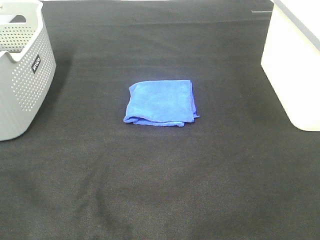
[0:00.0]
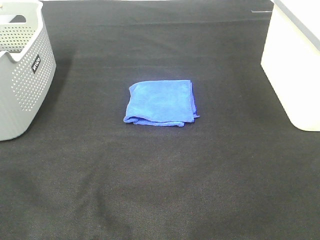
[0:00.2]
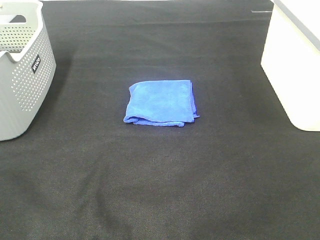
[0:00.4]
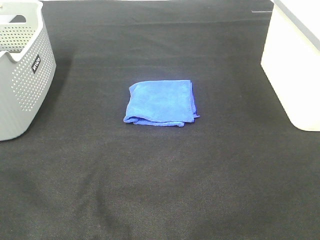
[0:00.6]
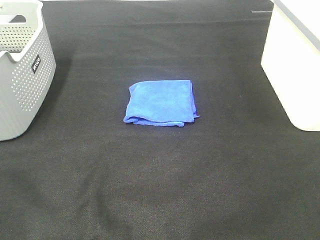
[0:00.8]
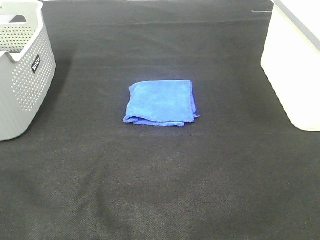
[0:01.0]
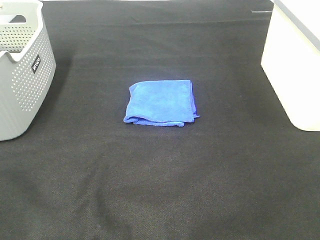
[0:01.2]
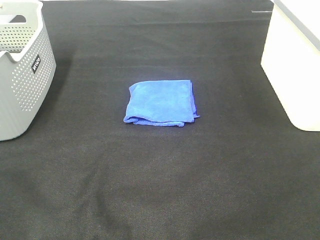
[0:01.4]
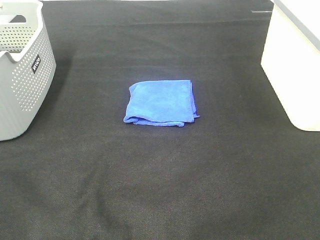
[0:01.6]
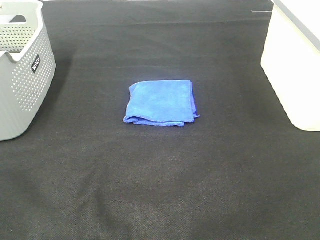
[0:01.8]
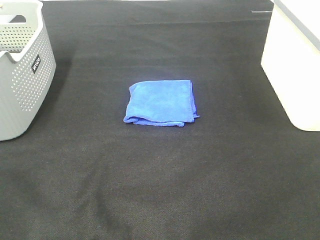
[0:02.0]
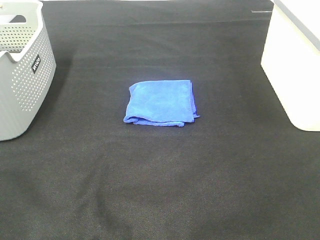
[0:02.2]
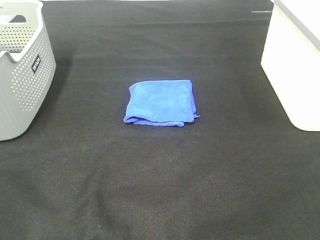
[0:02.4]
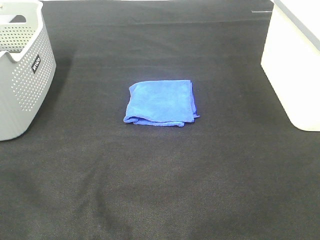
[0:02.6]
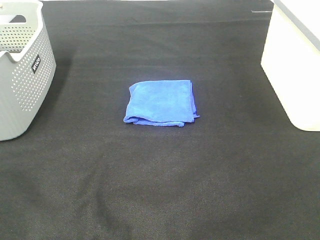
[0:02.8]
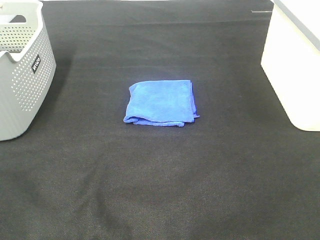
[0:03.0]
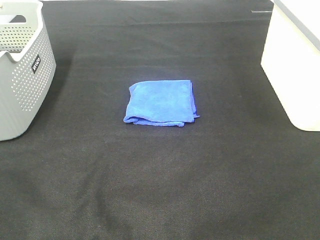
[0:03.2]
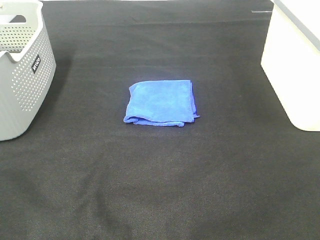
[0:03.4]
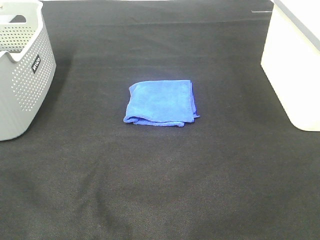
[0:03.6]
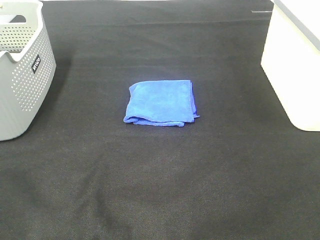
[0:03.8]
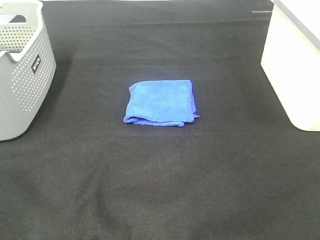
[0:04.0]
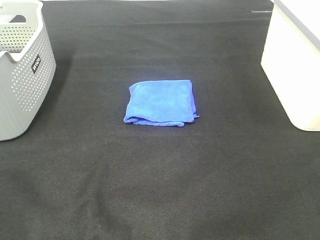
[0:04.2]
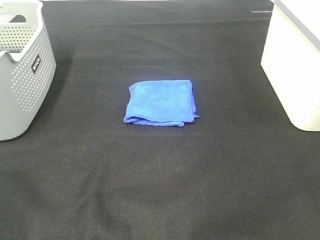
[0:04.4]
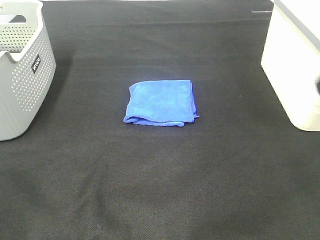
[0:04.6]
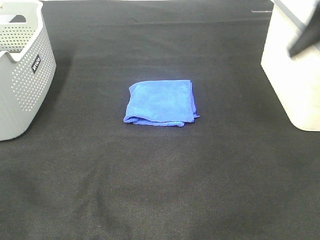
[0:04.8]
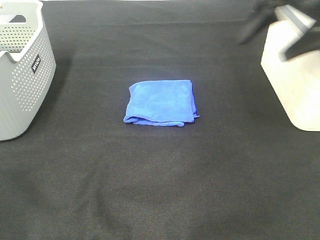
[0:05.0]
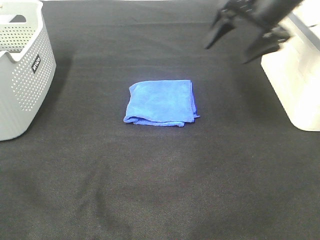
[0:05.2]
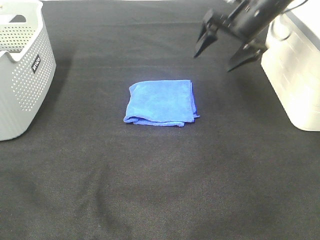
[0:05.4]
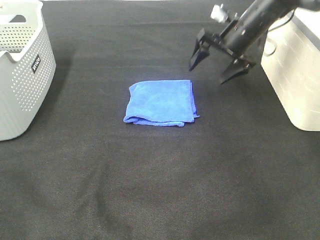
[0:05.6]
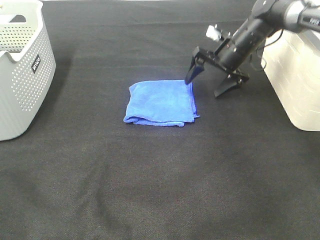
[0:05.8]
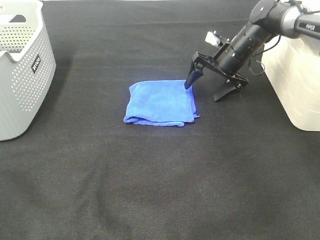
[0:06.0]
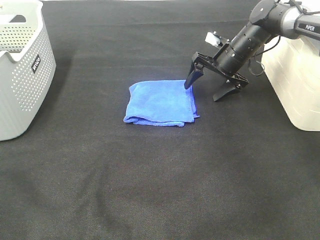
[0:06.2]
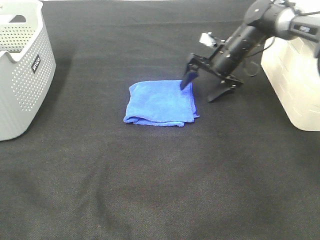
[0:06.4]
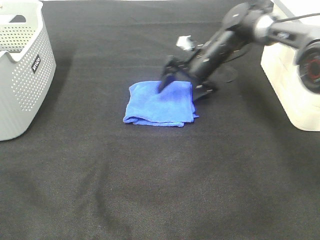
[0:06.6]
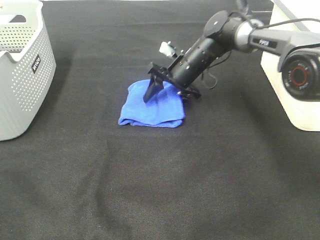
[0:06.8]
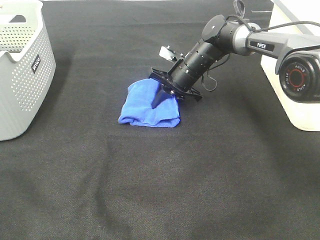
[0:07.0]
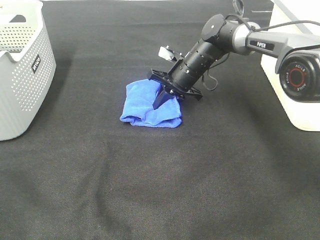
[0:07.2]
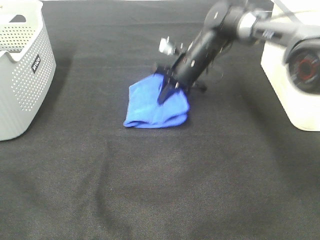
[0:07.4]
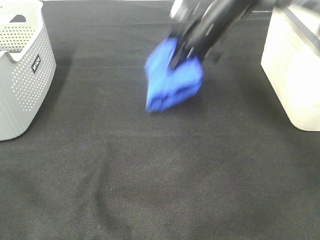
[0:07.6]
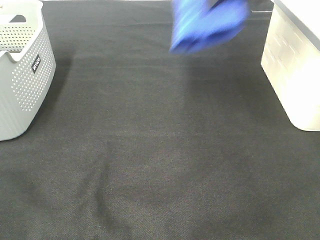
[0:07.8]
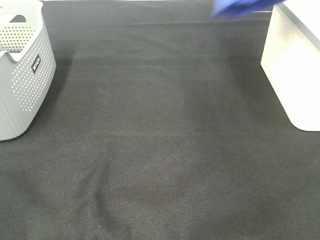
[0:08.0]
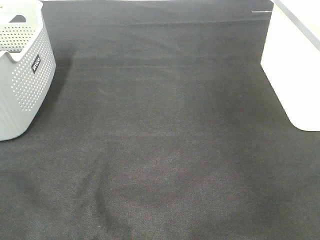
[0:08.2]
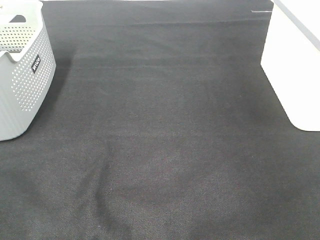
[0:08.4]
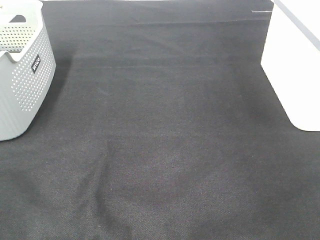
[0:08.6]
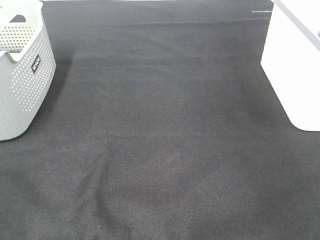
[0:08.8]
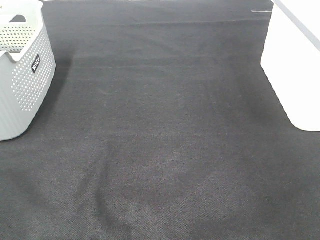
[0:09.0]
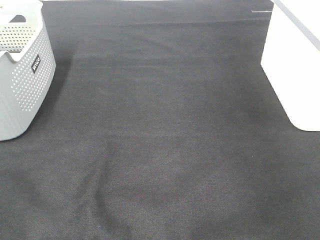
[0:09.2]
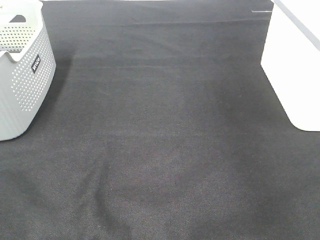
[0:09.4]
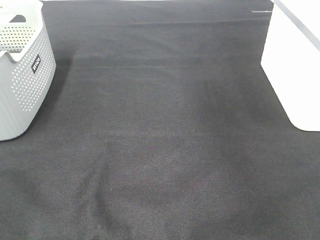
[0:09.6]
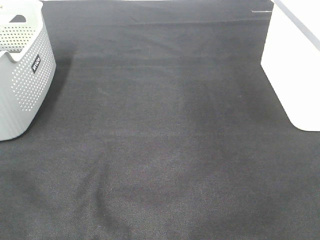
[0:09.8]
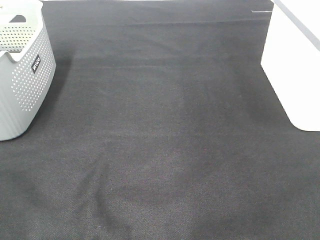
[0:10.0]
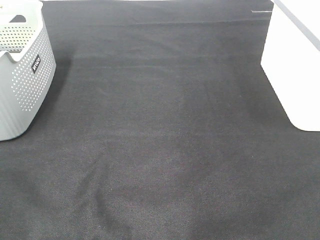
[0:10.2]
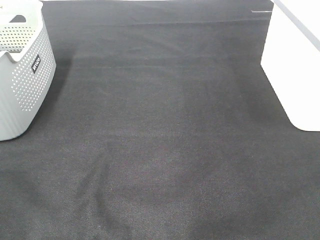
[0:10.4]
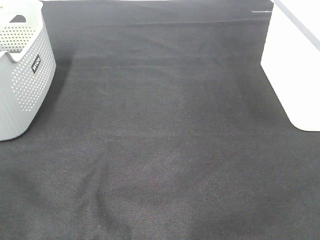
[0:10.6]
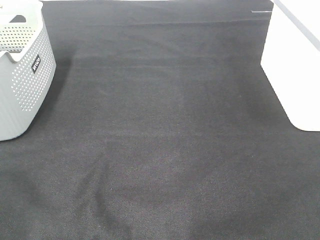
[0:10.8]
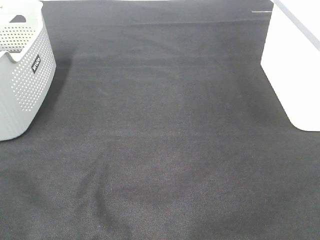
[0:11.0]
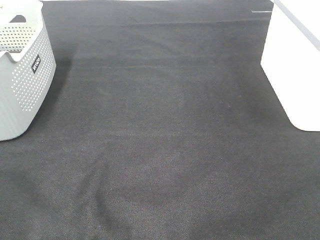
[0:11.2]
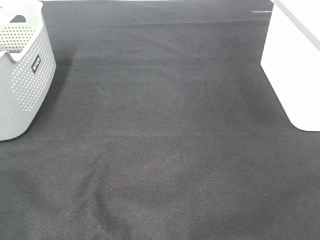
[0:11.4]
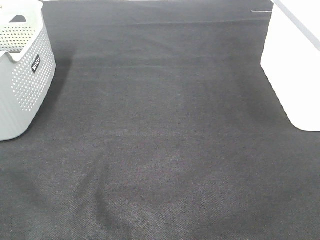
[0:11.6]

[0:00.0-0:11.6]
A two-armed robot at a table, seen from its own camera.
Step, 0:00.0 to 0:07.0: Right hand: grab the folded blue towel.
Step, 0:07.2 to 0:08.8: Right hand: place the blue towel in right basket.
0:00.0 to 0:02.8: Both grippers stay about where they are.
0:04.4 to 0:05.8: The right gripper shifts approximately 40 cm forward and downward.
0:05.8 to 0:07.2: The right gripper shifts approximately 10 cm to the left, and closes.
0:07.2 to 0:08.8: The right gripper moves to the right and upward, some 40 cm, and opens its fingers.

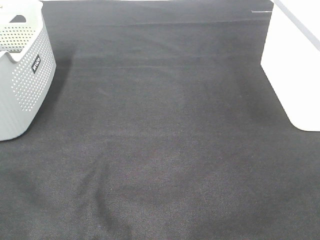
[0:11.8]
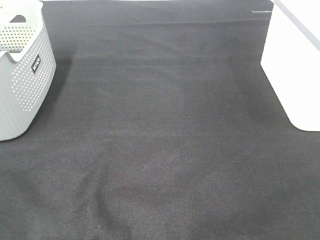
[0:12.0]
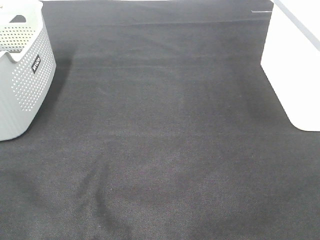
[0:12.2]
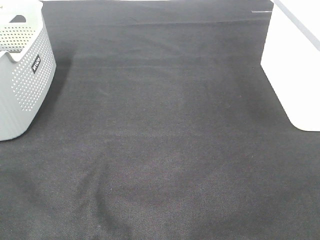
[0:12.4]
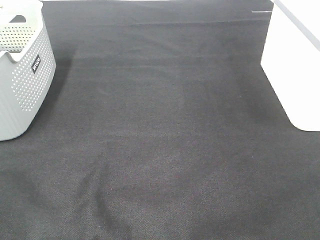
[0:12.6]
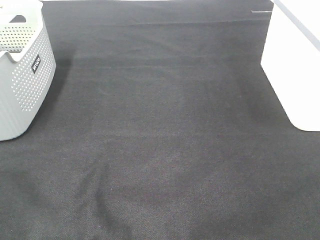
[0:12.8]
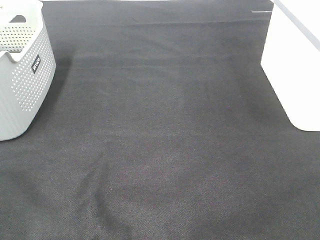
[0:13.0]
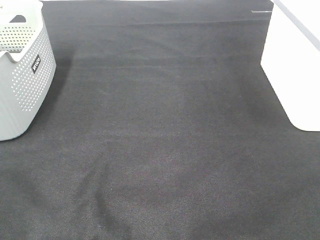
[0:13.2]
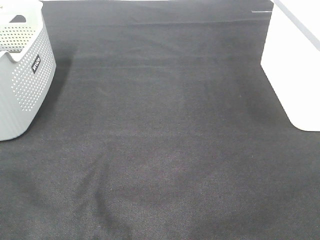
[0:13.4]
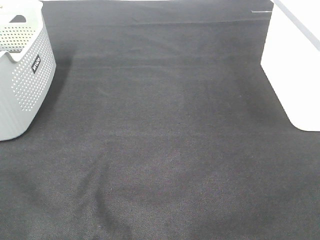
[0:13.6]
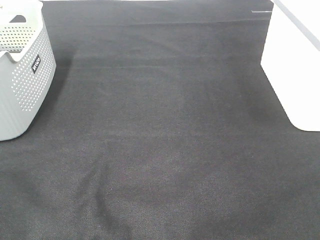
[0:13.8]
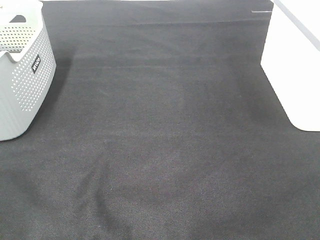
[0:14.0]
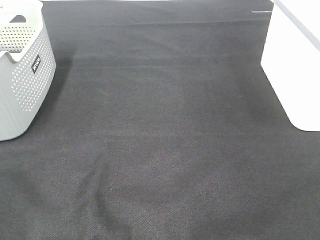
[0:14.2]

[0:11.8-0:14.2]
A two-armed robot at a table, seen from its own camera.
0:11.8 to 0:14.2: The two grippers keep their place.

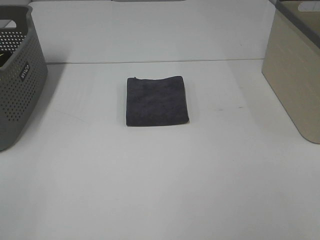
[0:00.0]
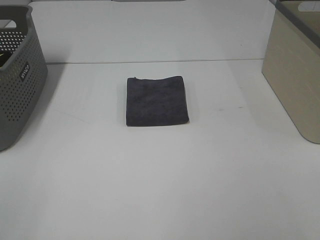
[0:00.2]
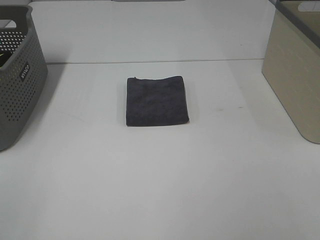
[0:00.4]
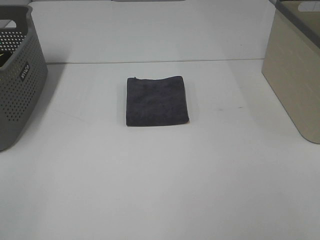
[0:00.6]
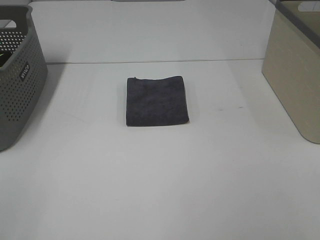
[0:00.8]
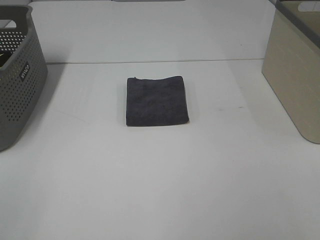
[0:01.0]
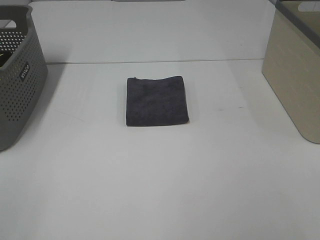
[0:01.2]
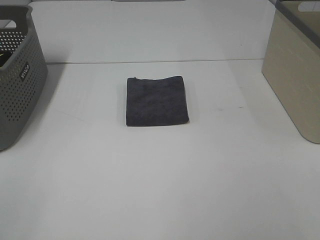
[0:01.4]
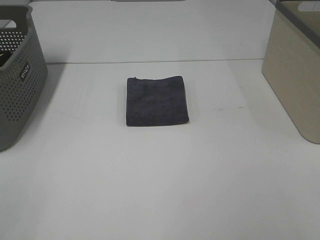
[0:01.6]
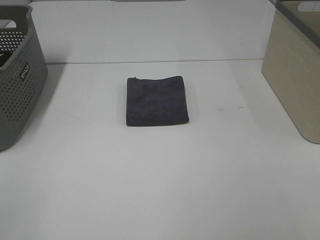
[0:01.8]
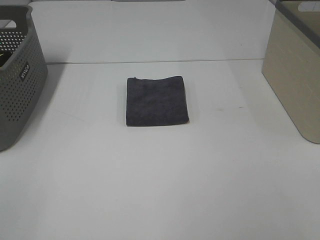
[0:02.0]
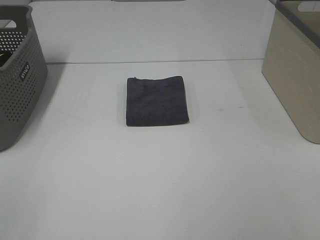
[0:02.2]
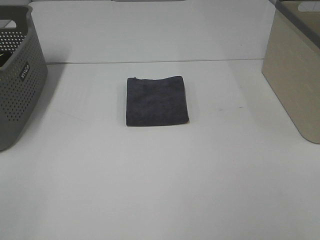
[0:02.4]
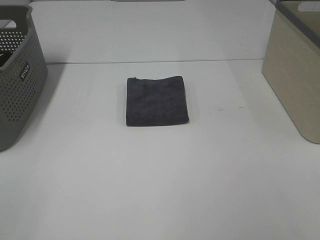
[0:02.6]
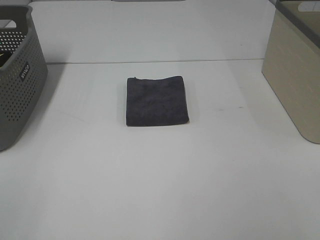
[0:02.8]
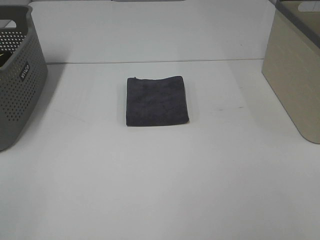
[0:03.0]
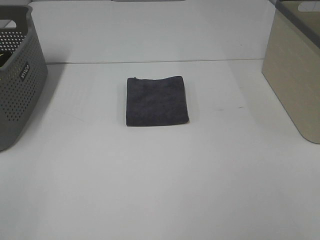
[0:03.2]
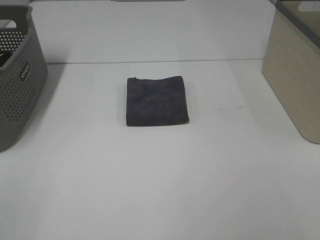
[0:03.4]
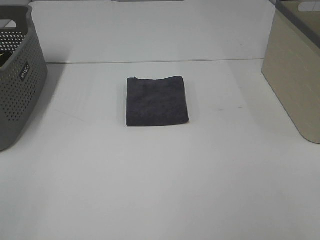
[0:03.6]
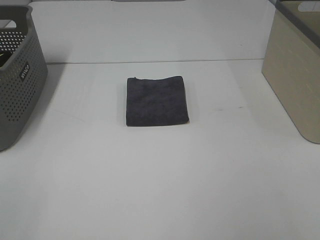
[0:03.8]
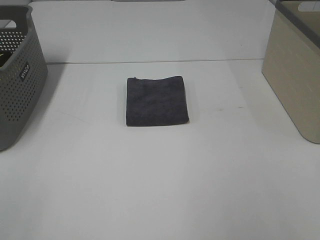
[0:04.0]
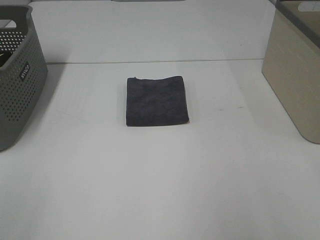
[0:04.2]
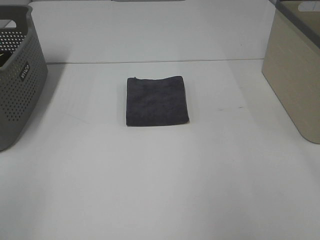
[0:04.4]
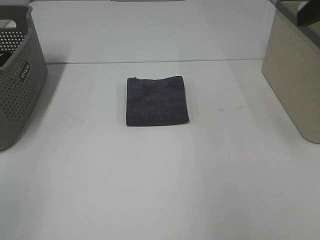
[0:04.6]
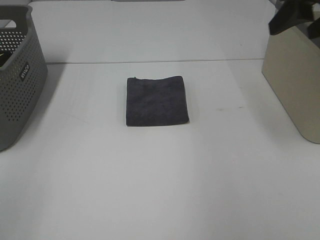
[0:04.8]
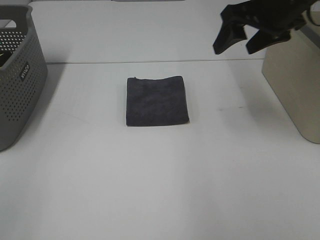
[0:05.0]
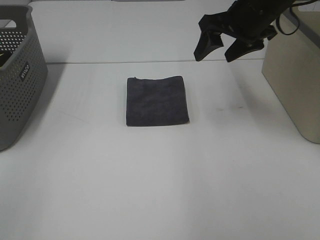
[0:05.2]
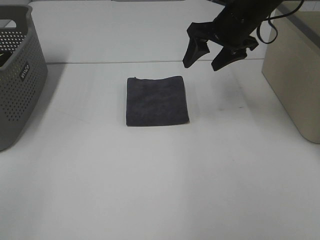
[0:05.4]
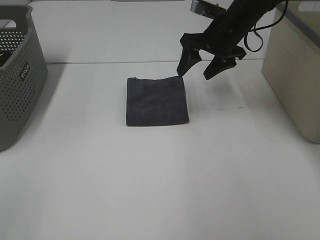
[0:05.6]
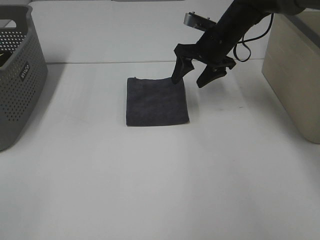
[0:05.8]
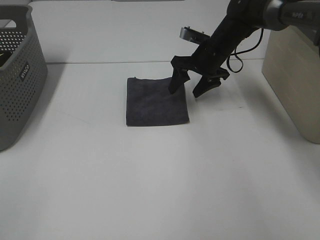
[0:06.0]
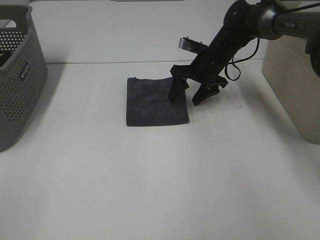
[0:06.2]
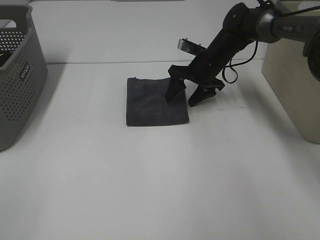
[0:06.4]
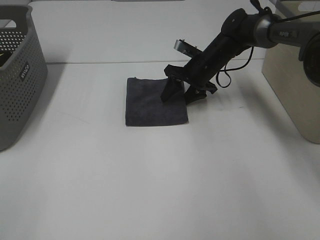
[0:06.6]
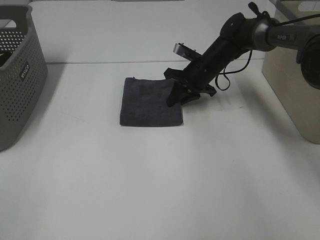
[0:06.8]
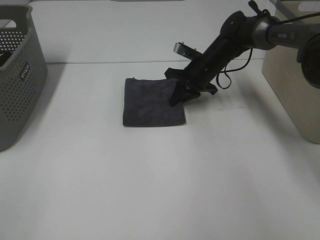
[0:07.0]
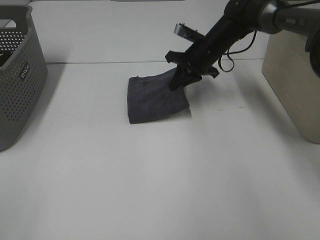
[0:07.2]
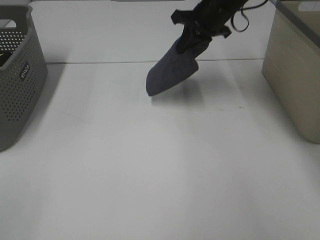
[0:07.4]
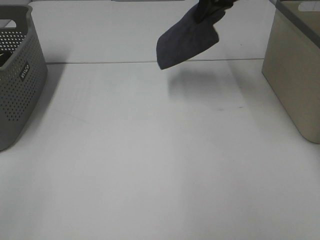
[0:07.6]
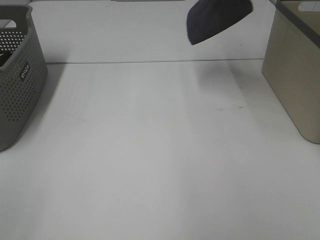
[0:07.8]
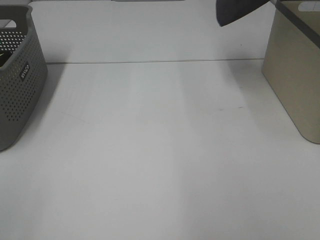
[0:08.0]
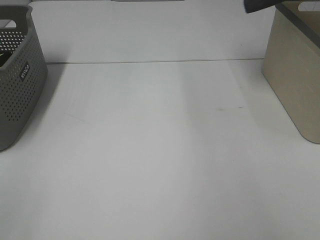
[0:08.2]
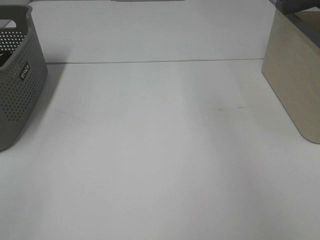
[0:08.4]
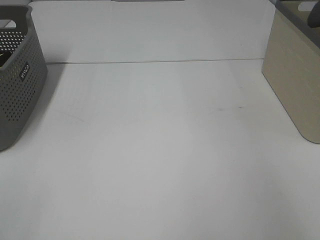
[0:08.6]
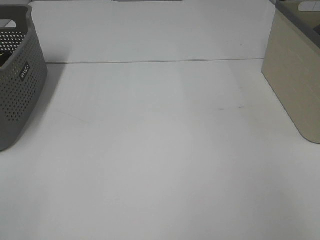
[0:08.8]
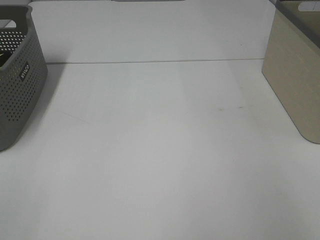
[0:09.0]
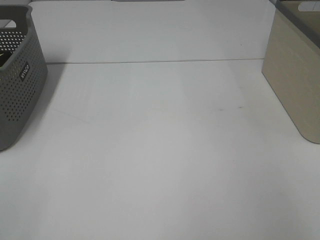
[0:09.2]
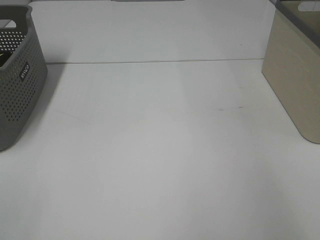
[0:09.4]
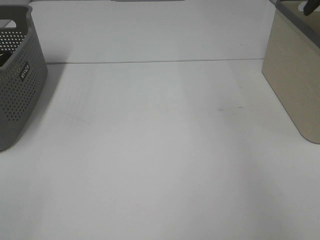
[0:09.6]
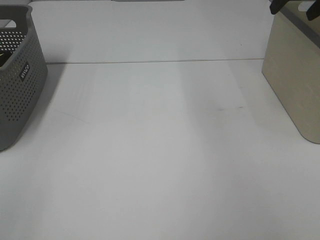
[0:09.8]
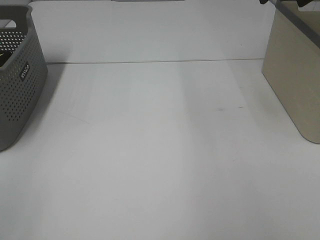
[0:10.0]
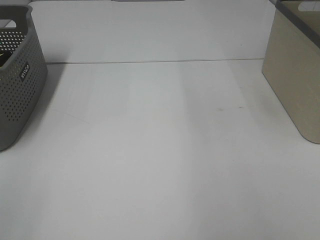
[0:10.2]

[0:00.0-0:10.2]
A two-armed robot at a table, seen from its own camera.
Step, 0:00.0 to 0:06.8: Right hand: grab the folded grey towel.
Step, 0:07.0 to 0:09.2: Right hand: place the grey towel in right basket.
0:00.0 to 0:03.0: Both grippers stay about where they are.
0:04.4 to 0:05.8: The right gripper goes about 35 cm forward, downward and to the left.
0:05.8 to 0:07.2: The right gripper closes up.
0:07.2 to 0:08.8: The right gripper shifts approximately 35 cm to the right and upward.
